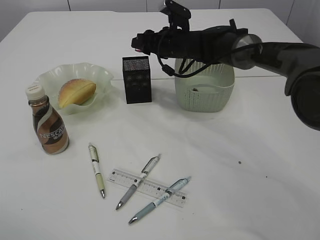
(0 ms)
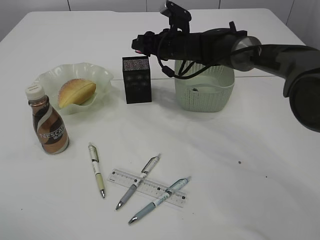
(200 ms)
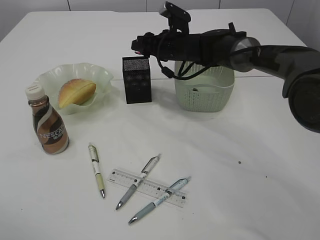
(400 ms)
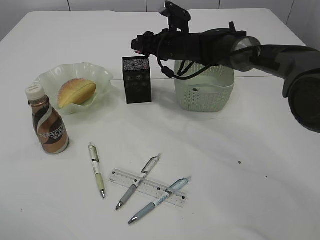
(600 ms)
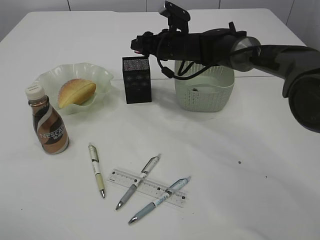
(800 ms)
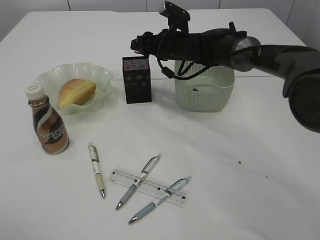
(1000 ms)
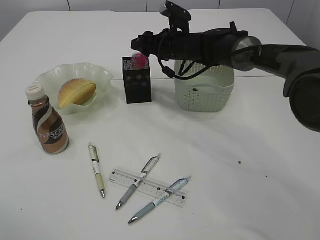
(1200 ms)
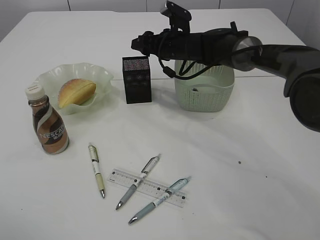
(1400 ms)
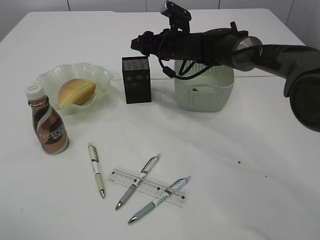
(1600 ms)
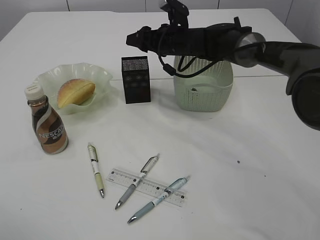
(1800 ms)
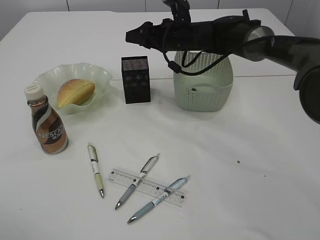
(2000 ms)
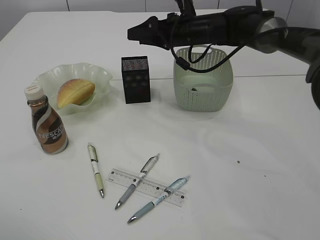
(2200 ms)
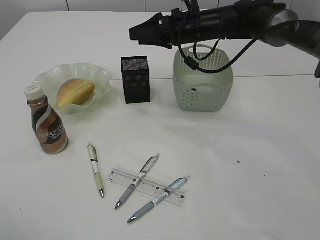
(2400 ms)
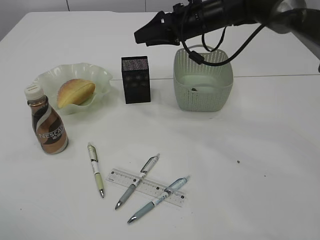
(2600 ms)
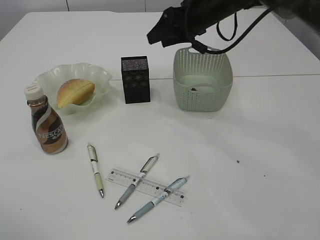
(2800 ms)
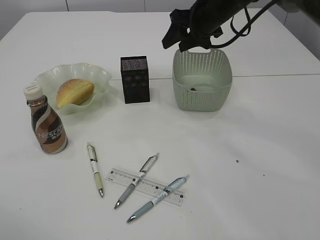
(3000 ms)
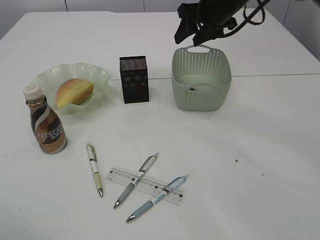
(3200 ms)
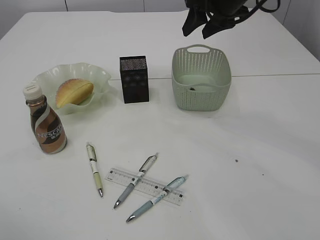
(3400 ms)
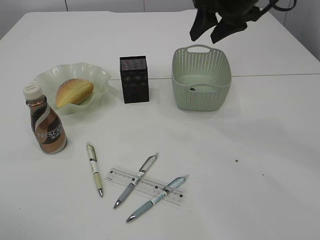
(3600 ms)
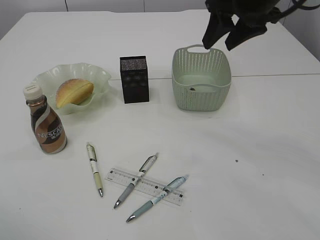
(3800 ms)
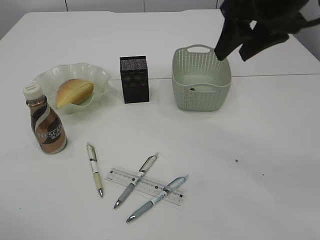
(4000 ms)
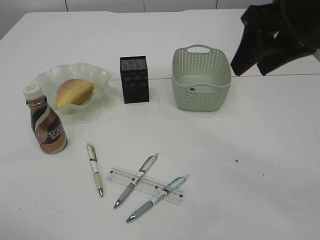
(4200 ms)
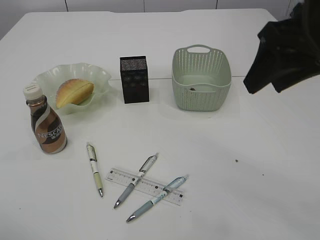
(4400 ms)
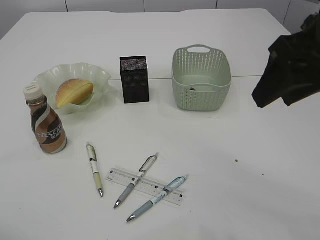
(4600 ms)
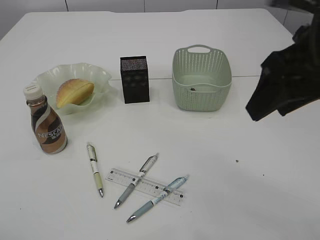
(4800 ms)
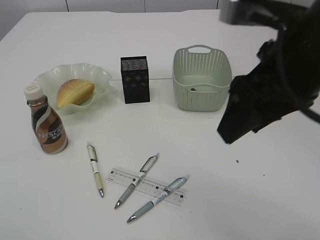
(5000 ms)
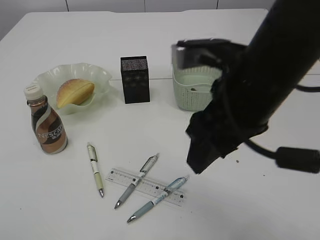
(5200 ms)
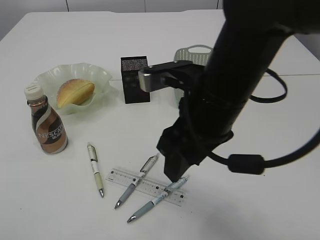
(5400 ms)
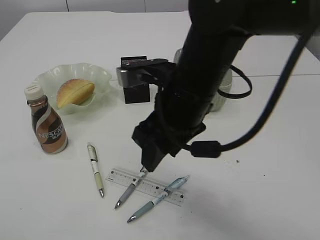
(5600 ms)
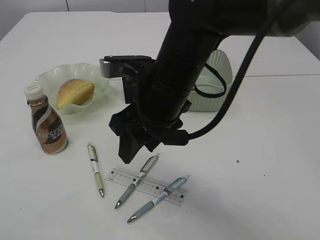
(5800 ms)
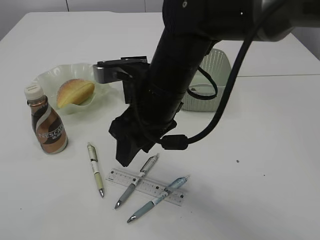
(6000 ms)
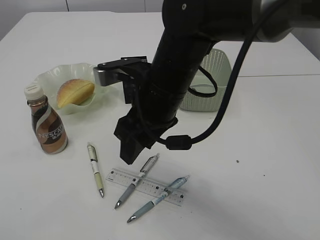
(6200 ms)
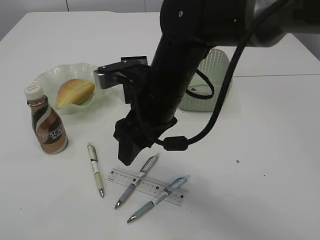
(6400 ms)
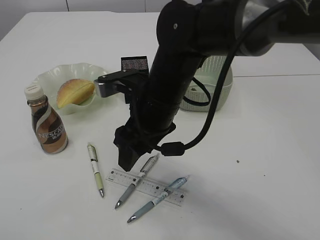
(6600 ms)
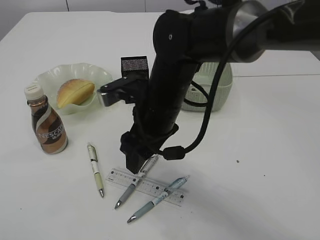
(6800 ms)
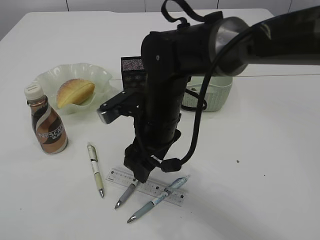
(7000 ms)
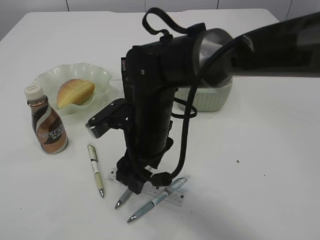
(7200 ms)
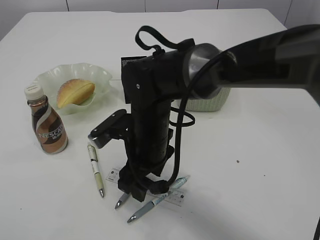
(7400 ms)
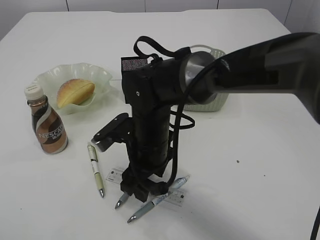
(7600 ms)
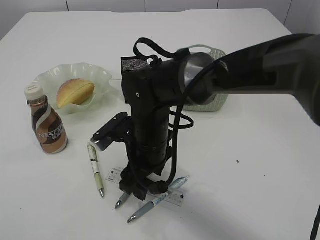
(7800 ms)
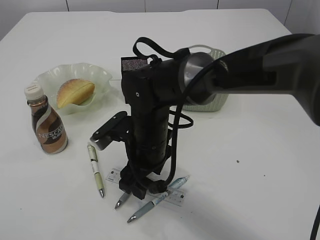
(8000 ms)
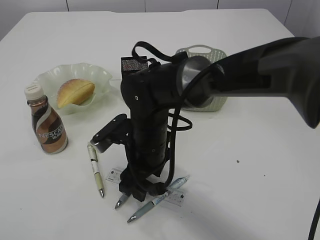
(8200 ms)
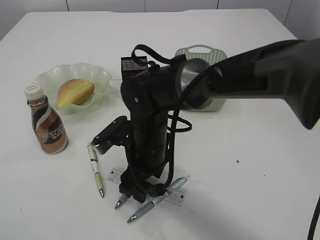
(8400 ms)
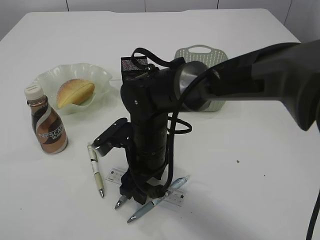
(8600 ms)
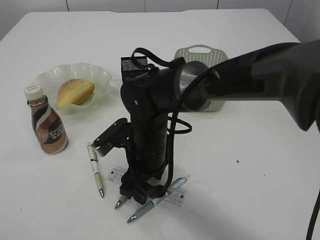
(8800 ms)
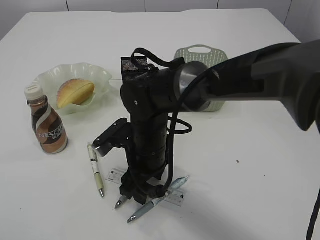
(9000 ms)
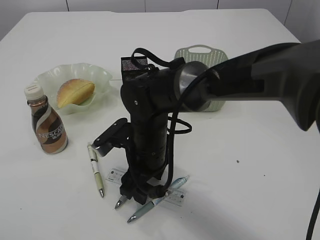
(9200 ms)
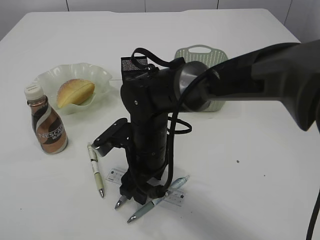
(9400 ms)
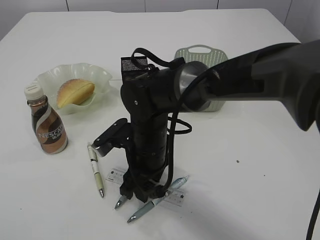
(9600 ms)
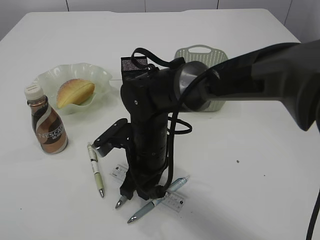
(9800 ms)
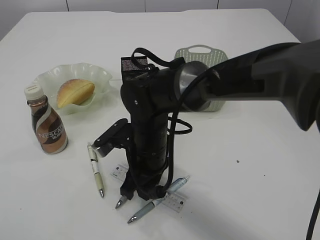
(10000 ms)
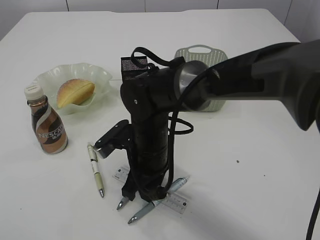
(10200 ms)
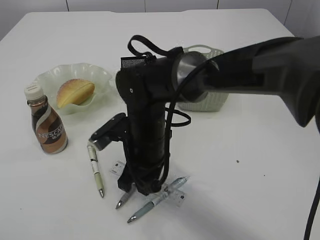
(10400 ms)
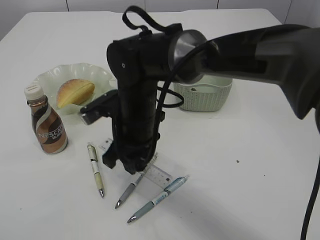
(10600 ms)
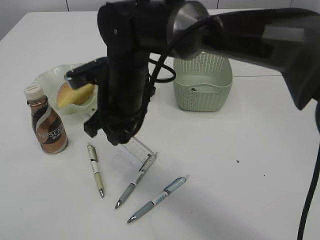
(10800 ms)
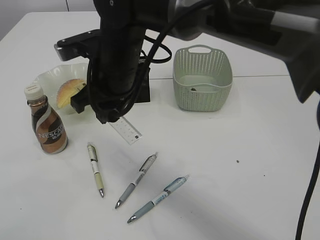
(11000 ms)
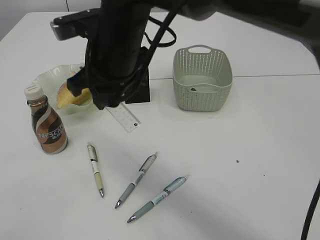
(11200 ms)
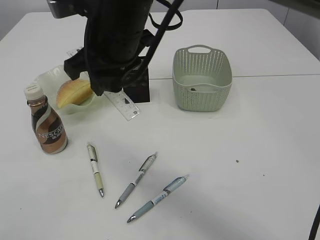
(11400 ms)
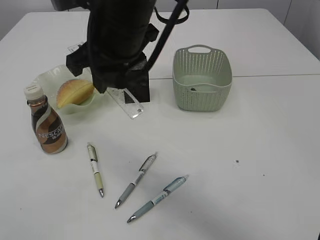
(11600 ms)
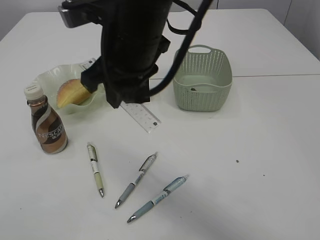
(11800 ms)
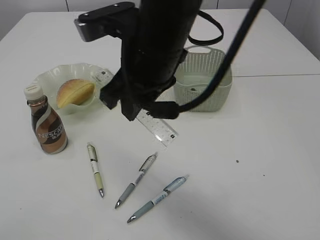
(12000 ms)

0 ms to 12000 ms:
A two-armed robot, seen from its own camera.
Step, 2000 ms to 10600 ms: pick up the ruler.
0 ms to 1600 ms: The two grippers keep their place.
1600 ms to 3000 ms: The right gripper shifts roughly 10 cm upward and to the right.
3000 ms to 4400 ms: The right gripper travels backward by approximately 25 cm.
4400 ms to 6000 ms: The left gripper travels backward by approximately 5 cm; the right gripper travels to the left and downward by roughly 20 cm.
6000 ms to 7600 ms: The right gripper shifts about 10 cm downward.
7600 ms to 9000 ms: The grippers move only a little.
9000 ms to 10400 ms: The right gripper closes its fingers.
10400 ms to 12000 ms: The right gripper shifts some 15 cm upward.

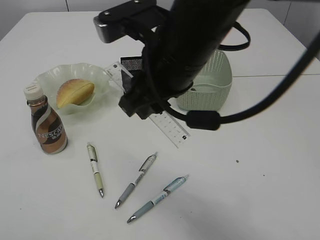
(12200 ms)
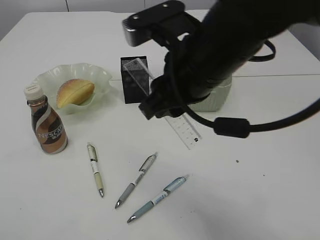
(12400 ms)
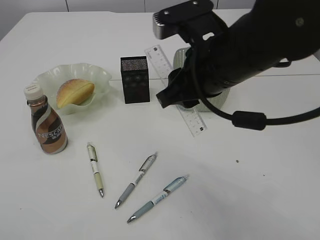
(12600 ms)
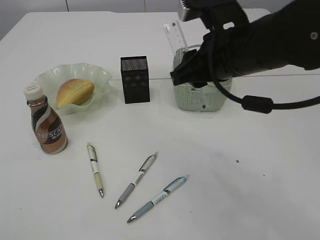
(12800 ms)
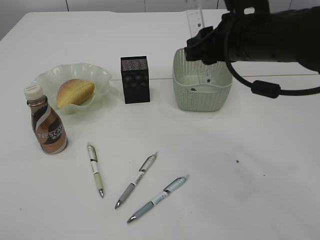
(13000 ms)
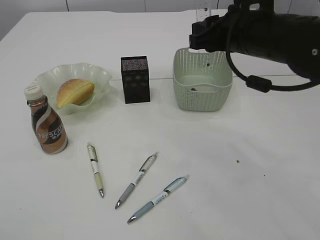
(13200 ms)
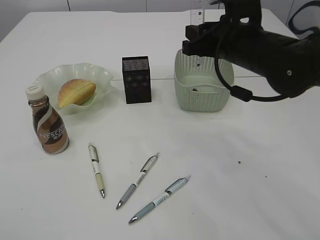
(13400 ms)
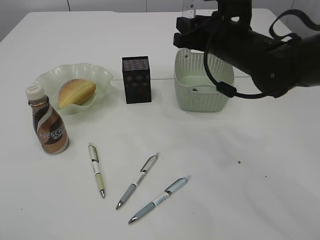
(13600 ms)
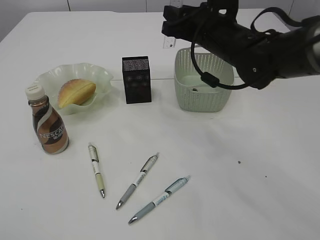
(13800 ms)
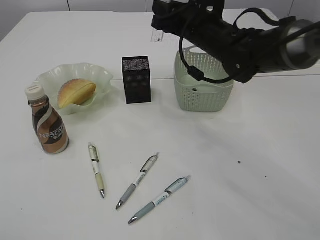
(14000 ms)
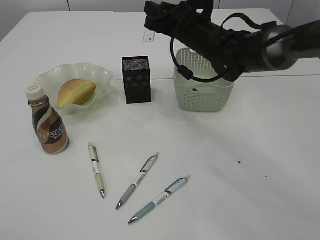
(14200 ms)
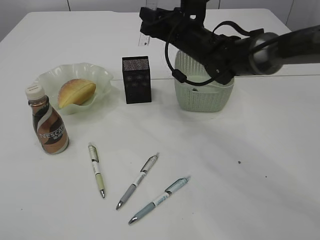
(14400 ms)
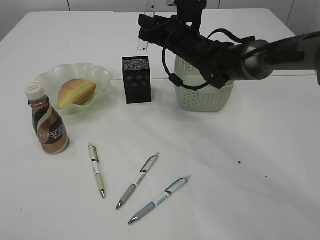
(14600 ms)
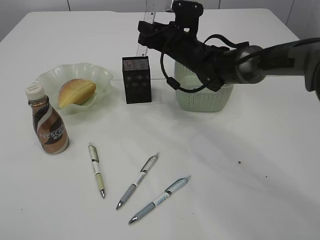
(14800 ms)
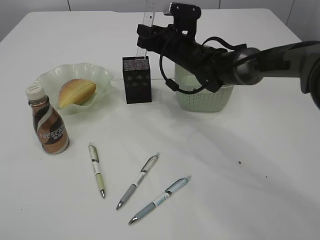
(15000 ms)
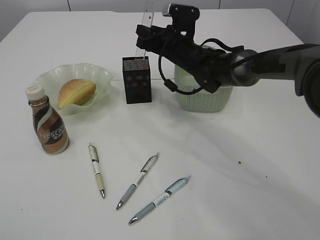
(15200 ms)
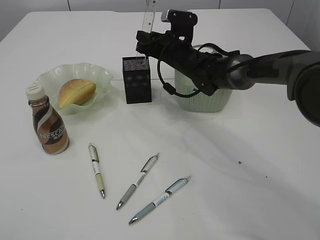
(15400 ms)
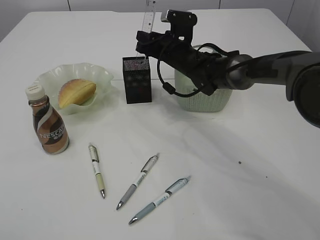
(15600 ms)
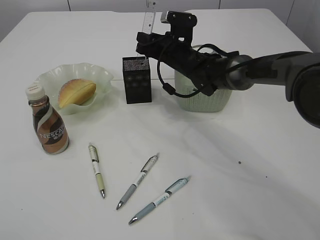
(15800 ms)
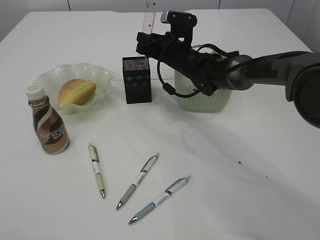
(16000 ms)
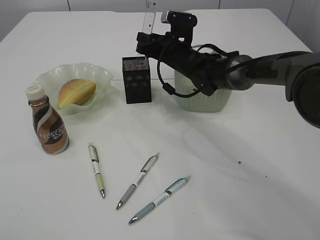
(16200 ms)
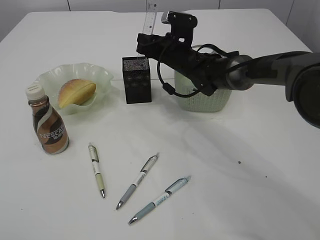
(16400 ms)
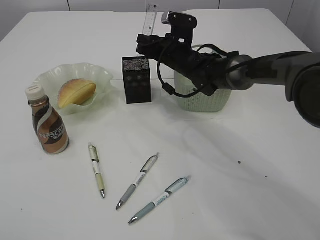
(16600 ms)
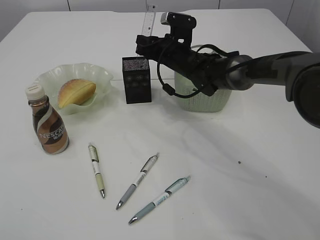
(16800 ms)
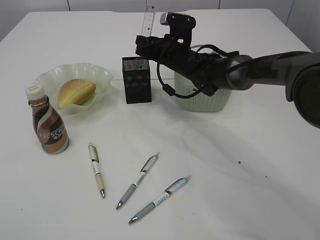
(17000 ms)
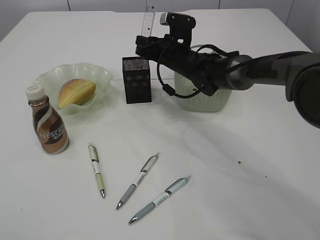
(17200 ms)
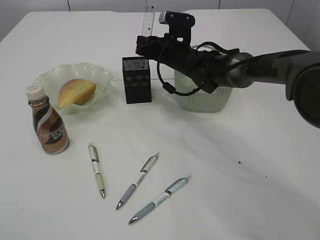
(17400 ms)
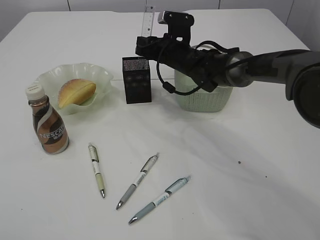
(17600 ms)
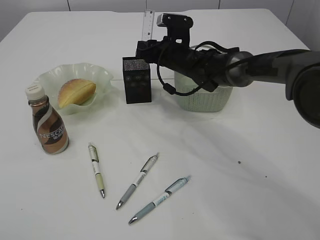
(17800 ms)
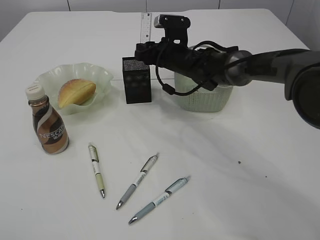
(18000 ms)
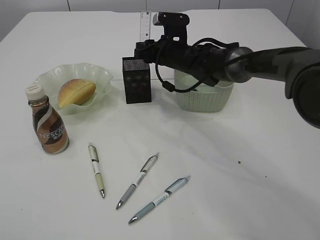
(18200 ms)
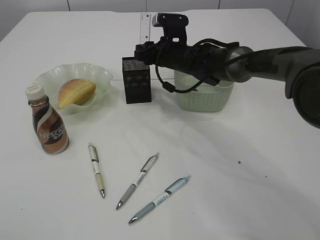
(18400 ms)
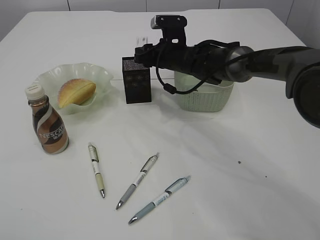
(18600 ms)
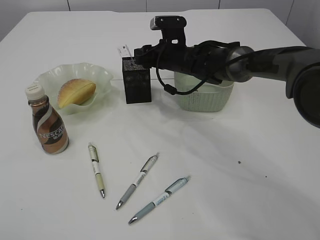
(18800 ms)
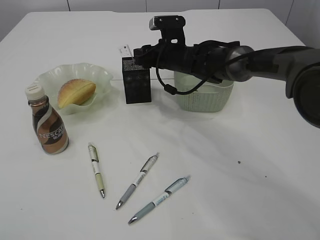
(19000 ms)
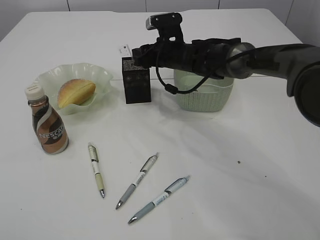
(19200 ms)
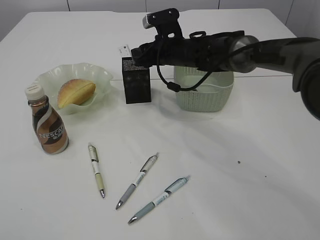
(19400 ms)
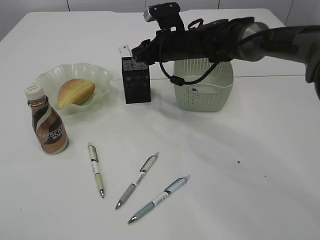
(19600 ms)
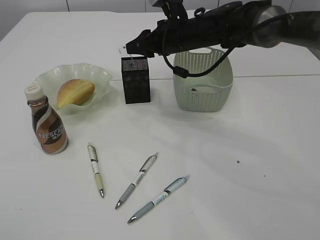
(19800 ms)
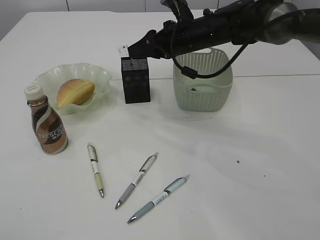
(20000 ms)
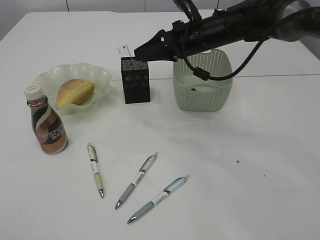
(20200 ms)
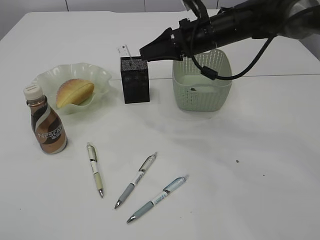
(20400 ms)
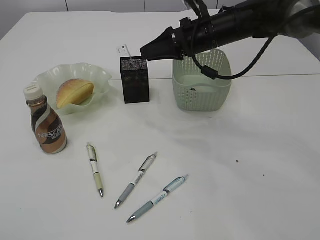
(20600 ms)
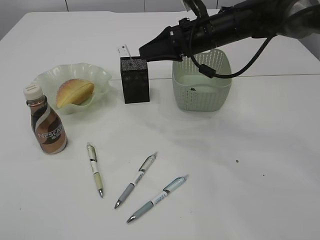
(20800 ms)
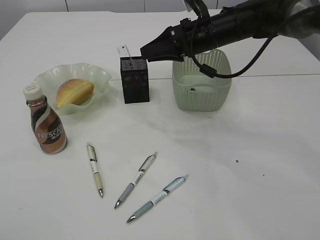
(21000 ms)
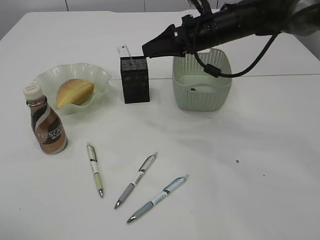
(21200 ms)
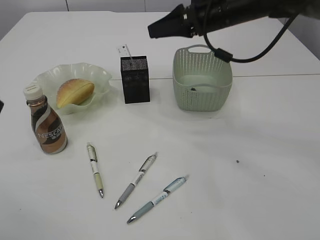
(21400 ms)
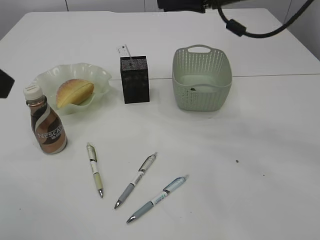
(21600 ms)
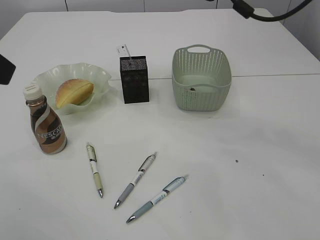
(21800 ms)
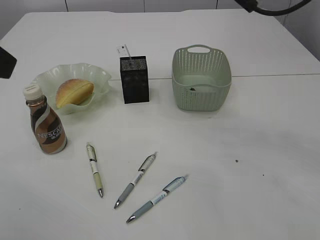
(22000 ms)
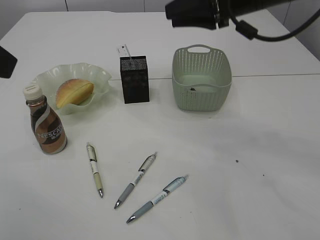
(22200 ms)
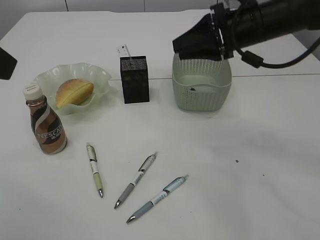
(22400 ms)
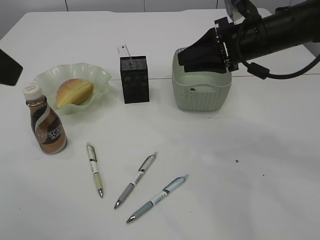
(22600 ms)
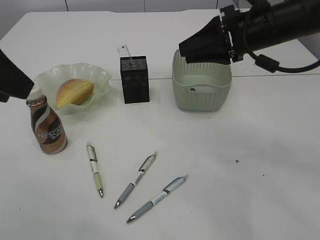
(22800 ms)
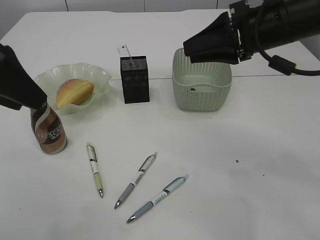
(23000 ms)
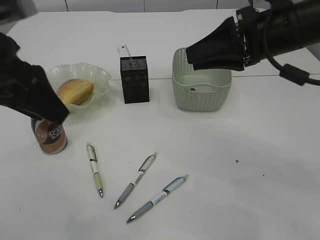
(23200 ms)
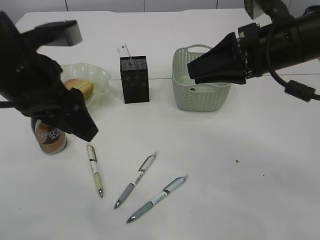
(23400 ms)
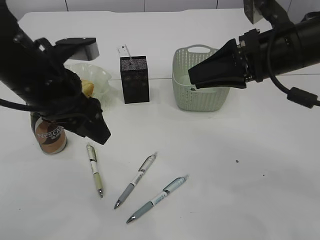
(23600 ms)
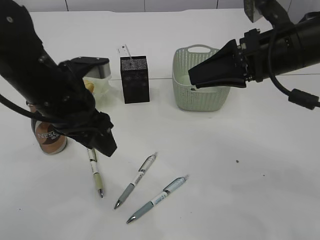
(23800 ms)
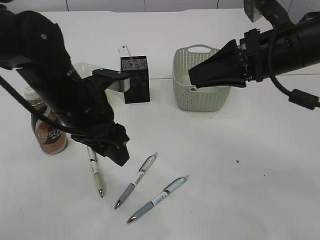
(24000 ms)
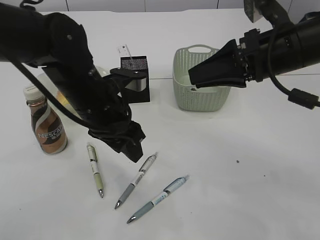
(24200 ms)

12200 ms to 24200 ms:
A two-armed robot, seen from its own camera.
Step, 12200 ms to 20000 ms: Place the ruler into the pen holder.
12200 ms to 13800 ms: The right gripper shifts about 15 cm forward and to the right.
13800 ms to 15200 ms: The right gripper shifts roughly 10 cm forward and downward.
15200 ms to 18200 ms: The grippers stay close to where they were, moving slightly.
18200 ms to 19800 ms: The right gripper shifts about 5 cm upward.
19800 ms to 21200 ms: The right gripper ends up some 5 cm from where it was.
21200 ms to 22600 ms: The right gripper travels backward and to the right by about 10 cm, and moves approximately 10 cm upward and comes back; the left gripper is displaced forward by about 5 cm.
22600 ms to 24200 ms: The right gripper shifts some 10 cm backward. Meanwhile the left gripper travels downward, to the right and forward by about 25 cm.
